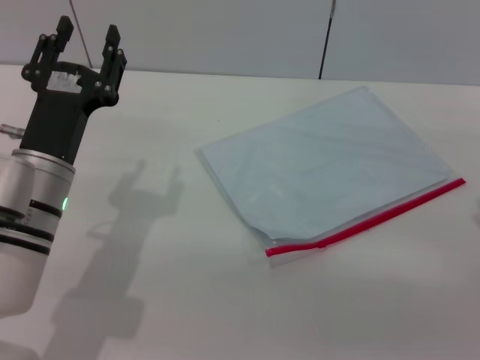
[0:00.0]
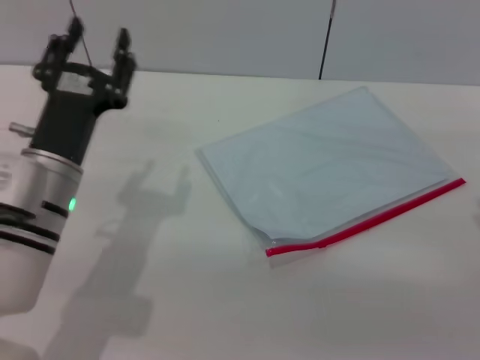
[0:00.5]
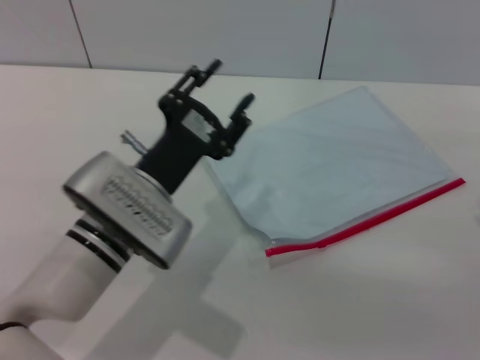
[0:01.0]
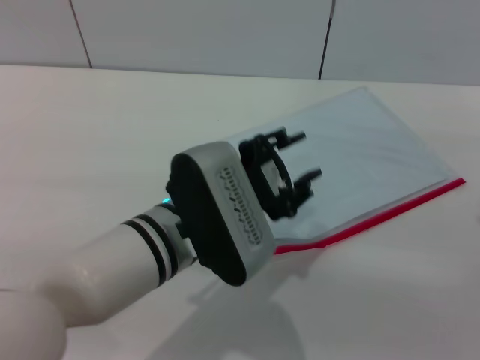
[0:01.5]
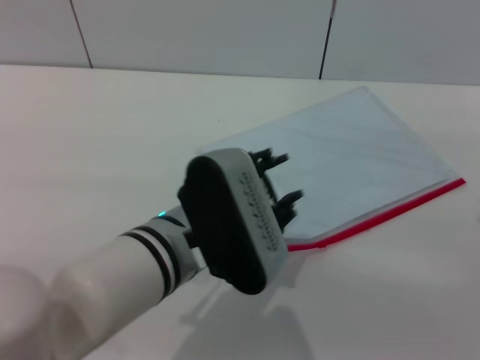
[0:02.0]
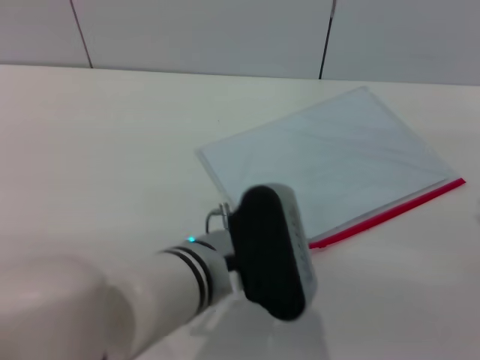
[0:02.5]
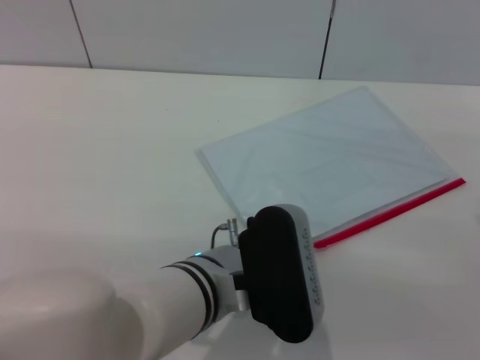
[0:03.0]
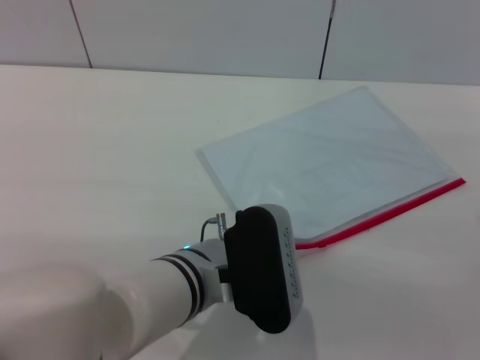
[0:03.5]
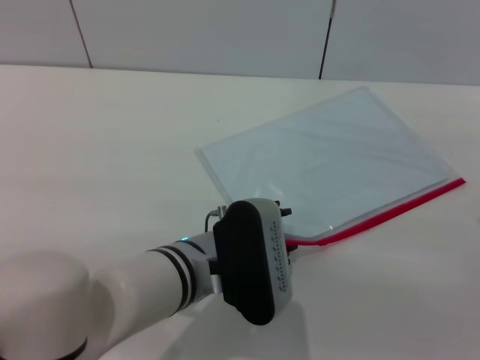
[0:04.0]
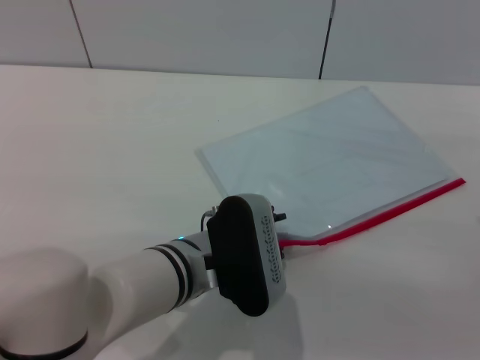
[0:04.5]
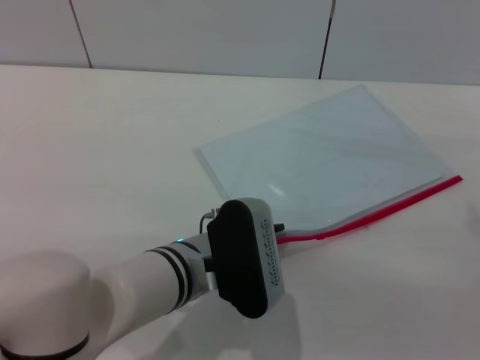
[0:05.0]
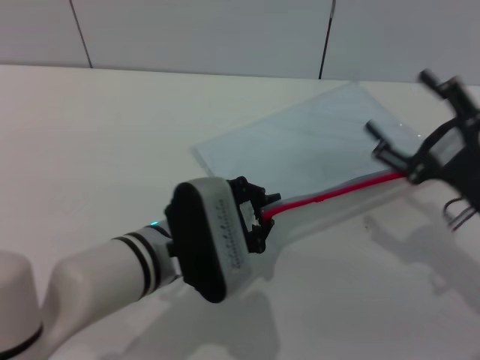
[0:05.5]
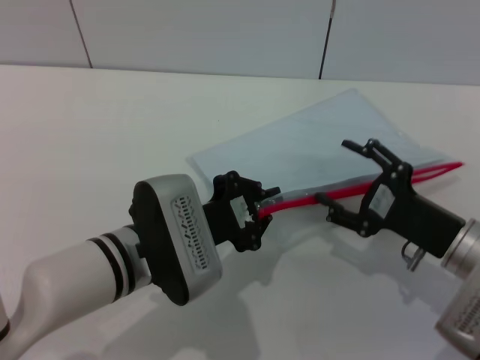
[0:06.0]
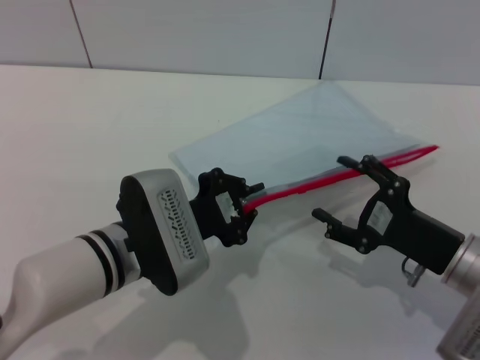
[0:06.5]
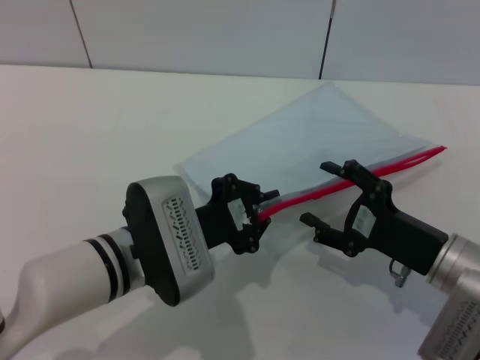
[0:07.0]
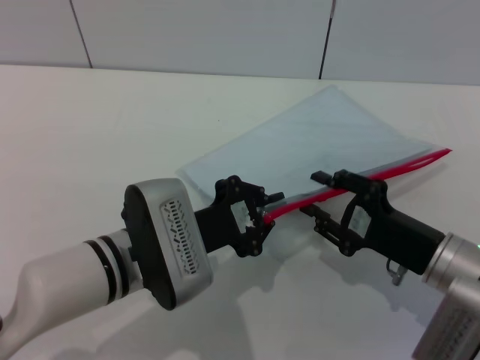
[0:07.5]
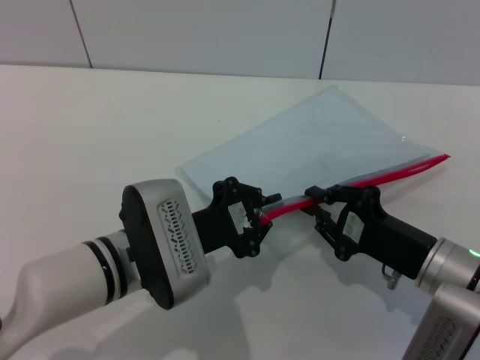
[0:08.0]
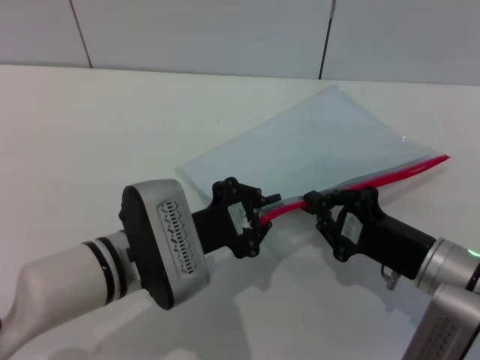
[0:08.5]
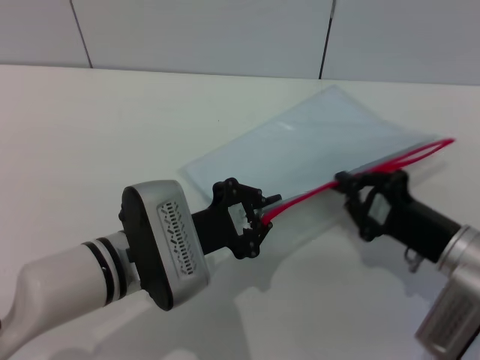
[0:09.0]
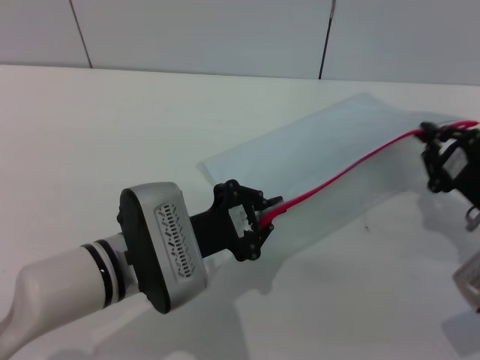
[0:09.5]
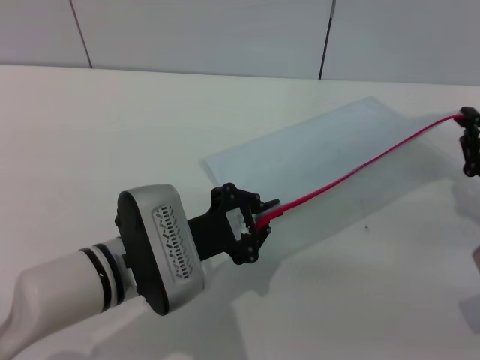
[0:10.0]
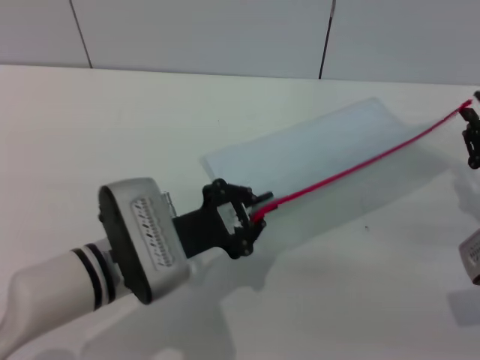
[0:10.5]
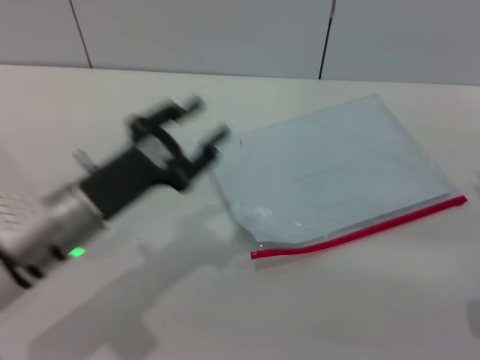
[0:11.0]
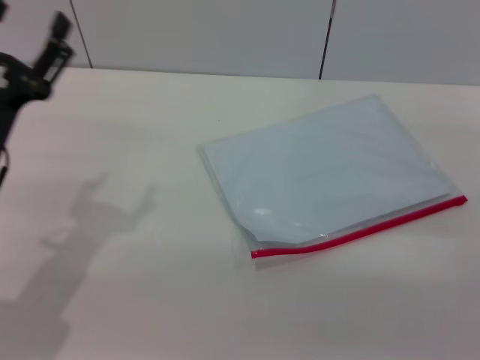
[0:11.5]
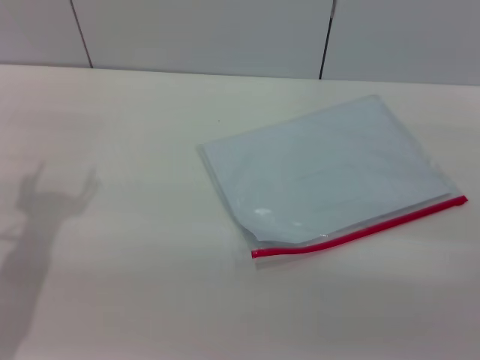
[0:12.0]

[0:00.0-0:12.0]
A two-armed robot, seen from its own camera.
Step, 0:00.0 to 0:06.5: Pick up the transparent plastic bag with the left gripper.
Step, 0:07.0 to 0:10.0: Pulling up the zipper on the transparent plastic bag with the right gripper to close it.
Step, 0:10.5 to 0:11.0: Place the transparent plastic bag.
0:00.0 to 0:02.0: The left gripper heads to the right, covering roughly 15 cm.
0:02.0 to 0:04.0: The left gripper is displaced downward by roughly 5 cm.
0:04.0 to 0:06.0: The right gripper moves to the left, approximately 5 cm. The left gripper shifts by some 5 cm, and closes its fingers.
0:06.0 to 0:08.0: The right gripper closes.
0:08.0 to 0:10.0: The right gripper shifts approximately 10 cm to the right.
0:10.0 to 0:12.0: The left gripper travels to the left by roughly 15 cm, and opens. The right gripper changes place by approximately 5 cm, and opens.
